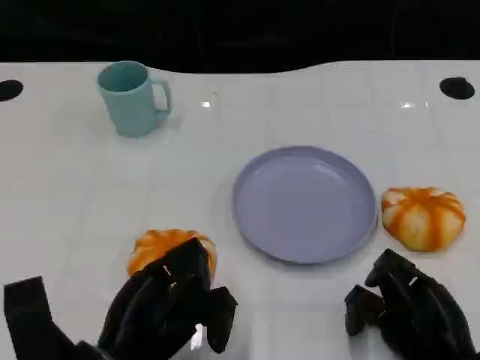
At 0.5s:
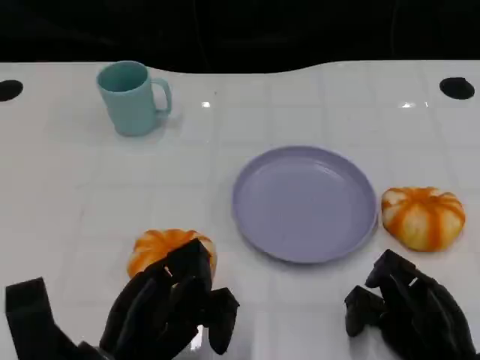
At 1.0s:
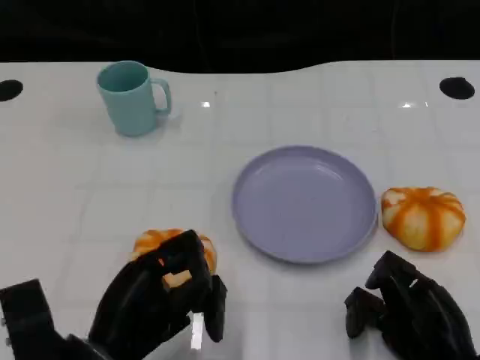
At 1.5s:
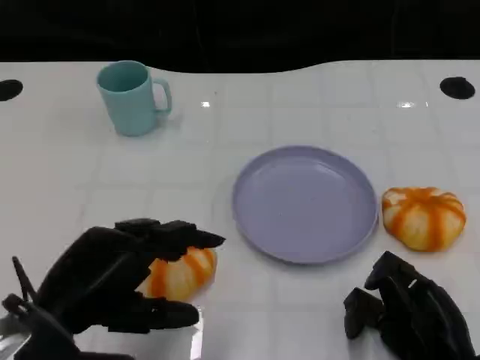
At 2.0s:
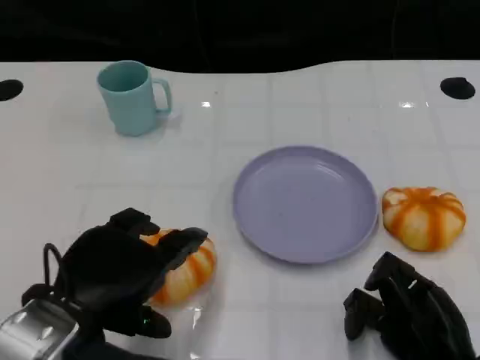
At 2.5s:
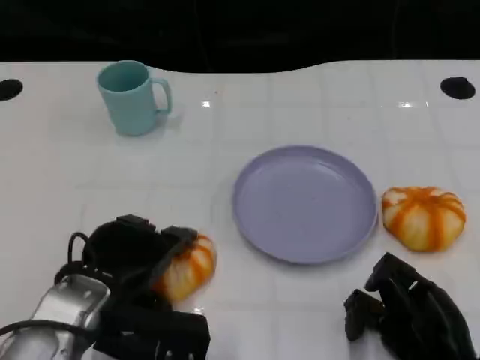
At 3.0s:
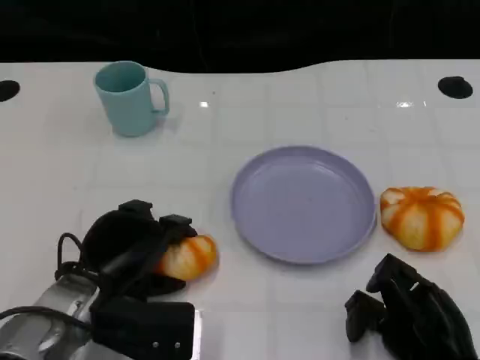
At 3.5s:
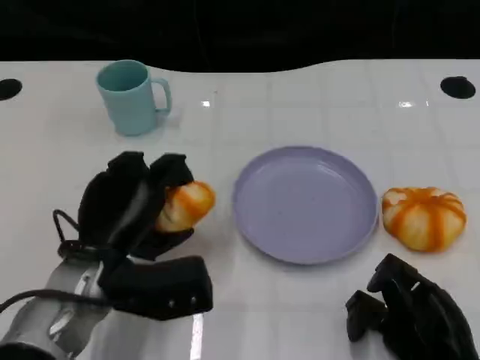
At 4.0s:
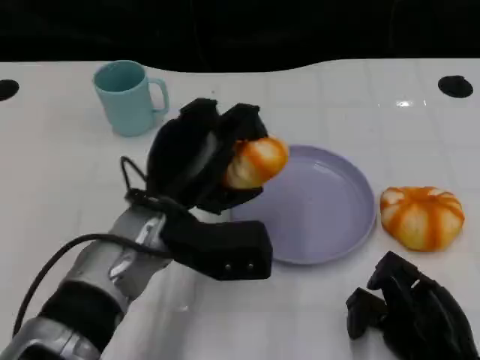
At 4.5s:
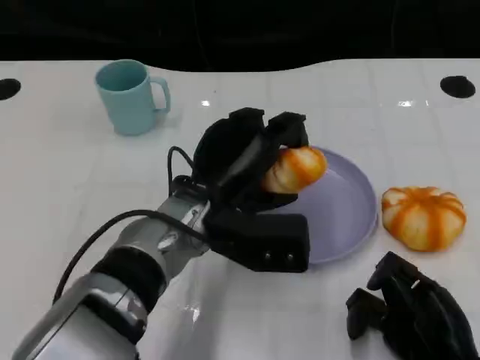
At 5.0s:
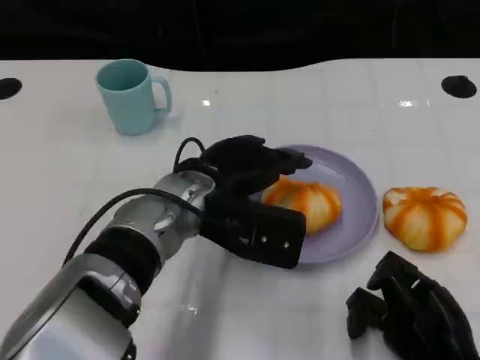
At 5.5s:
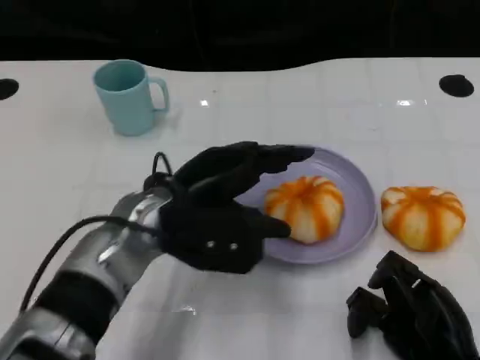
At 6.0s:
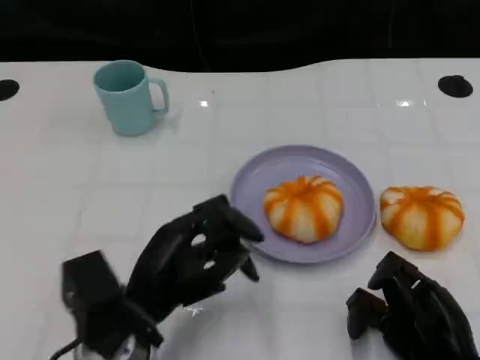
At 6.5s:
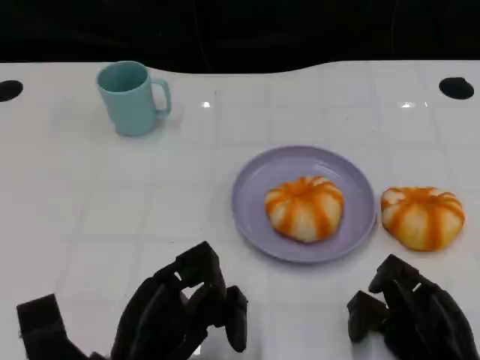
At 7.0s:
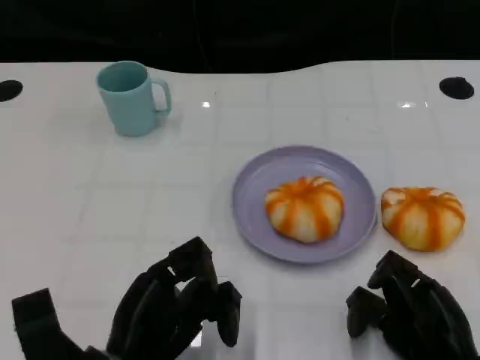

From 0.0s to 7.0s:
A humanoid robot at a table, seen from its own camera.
Task of the whole recording: Grasp the bread from the table and place it into the plate.
From 0.0s to 2.0s: The left hand shifts roughly 10 cm upward.
From 2.0s to 3.5s: The left hand goes roughly 5 cm forward.
From 3.5s to 5.0s: The left hand travels to the right and forward by roughly 10 cm.
From 5.0s to 7.0s: The left hand goes roughly 20 cm backward, to the left and downward.

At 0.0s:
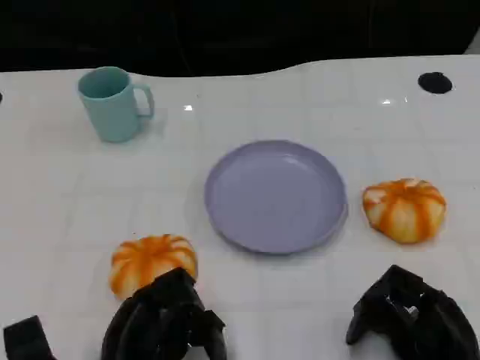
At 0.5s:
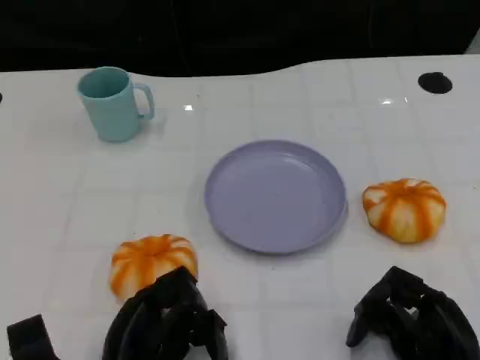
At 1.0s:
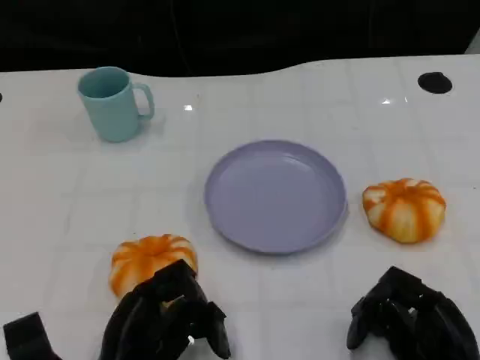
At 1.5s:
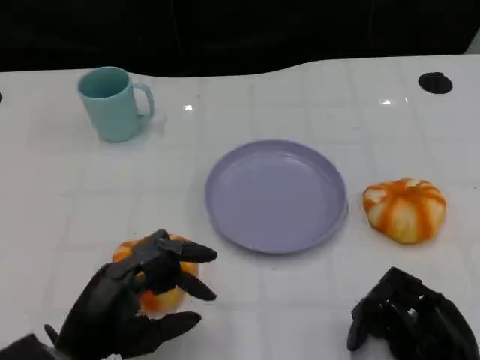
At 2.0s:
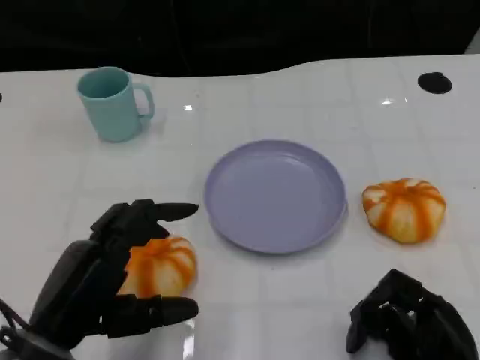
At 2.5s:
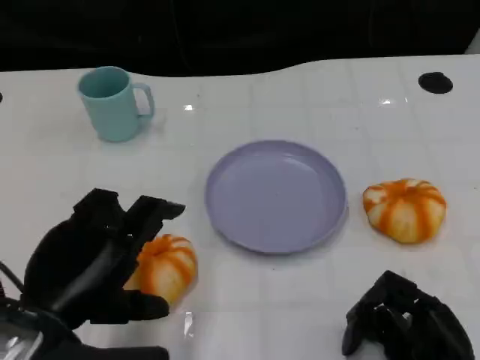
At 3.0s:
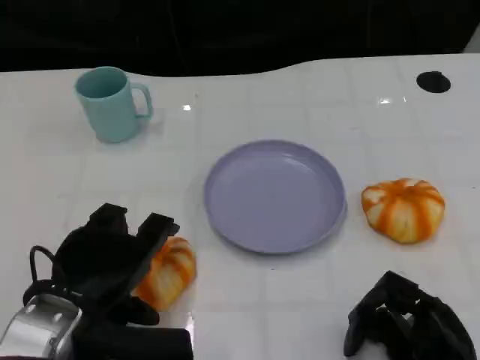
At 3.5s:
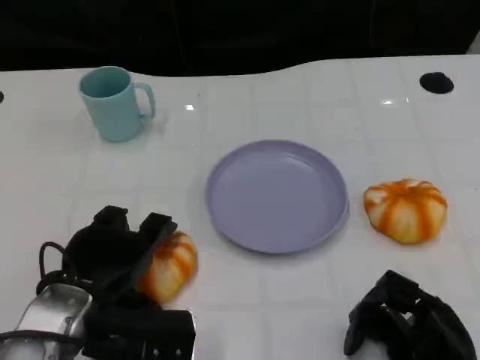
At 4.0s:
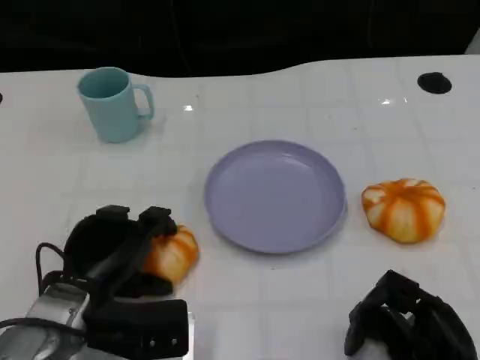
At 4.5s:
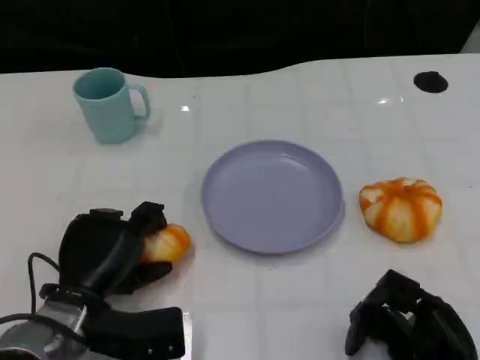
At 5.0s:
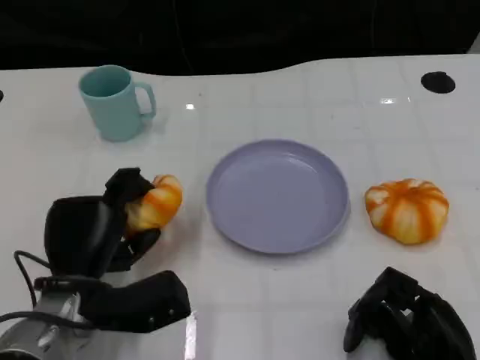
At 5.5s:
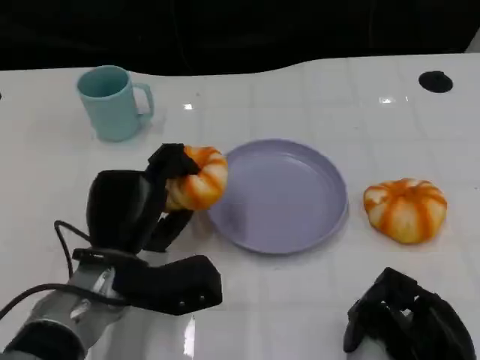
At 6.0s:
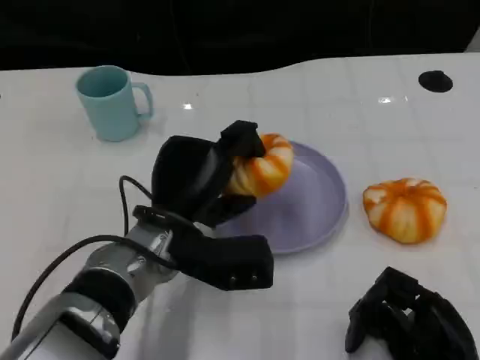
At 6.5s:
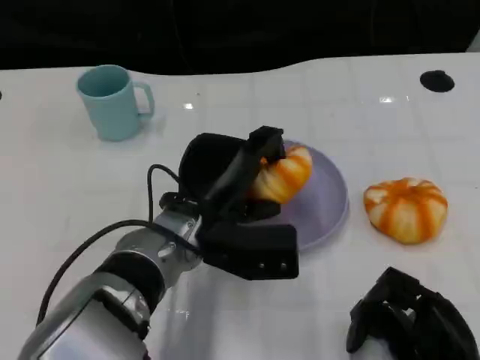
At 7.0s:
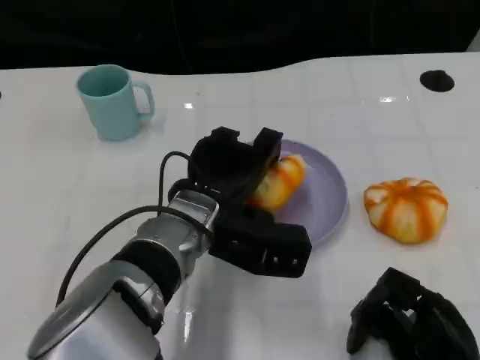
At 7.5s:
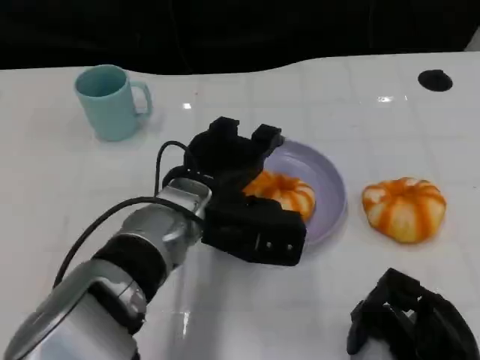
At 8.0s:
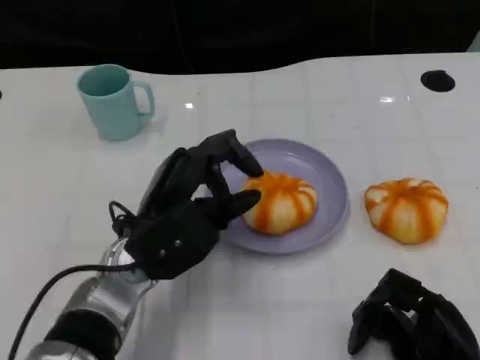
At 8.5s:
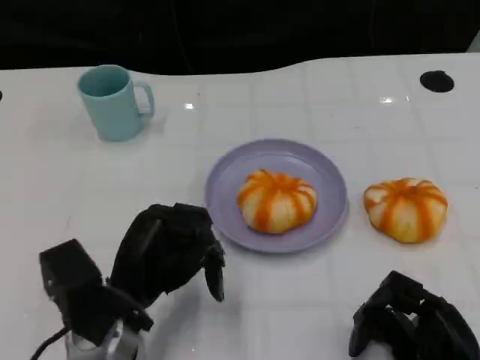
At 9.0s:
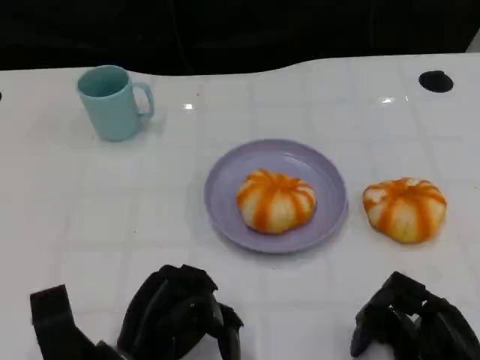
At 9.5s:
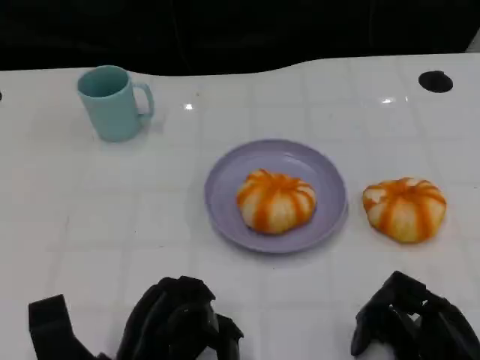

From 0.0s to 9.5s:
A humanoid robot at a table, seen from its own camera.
Task of the whole recording: Grasp the bread from the table and place it into the plate.
From 0.0s to 2.0s: The left hand is displaced upward by approximately 10 cm.
From 2.0s to 4.0s: The left hand moves forward and downward, roughly 10 cm.
From 4.0s to 5.5s: The left hand shifts by some 5 cm.
From 5.5s to 7.5s: The left hand heads to the right and upward, covering about 10 cm.
From 7.5s to 9.5s: The left hand shifts approximately 20 cm backward, downward and to the left.

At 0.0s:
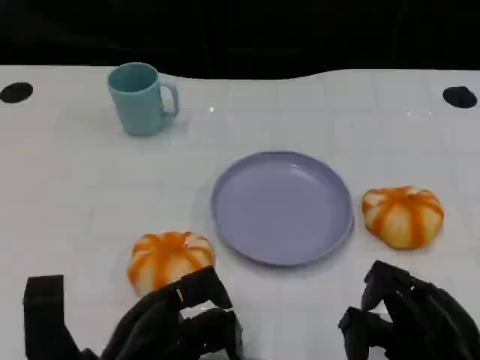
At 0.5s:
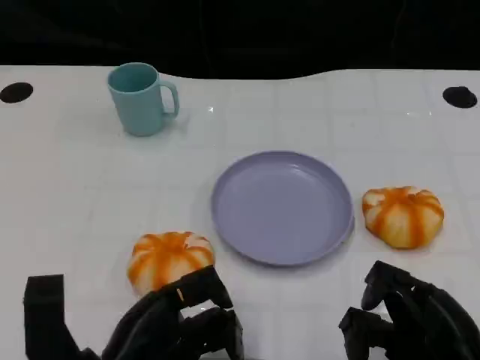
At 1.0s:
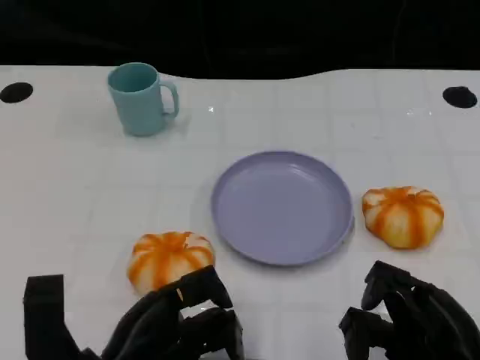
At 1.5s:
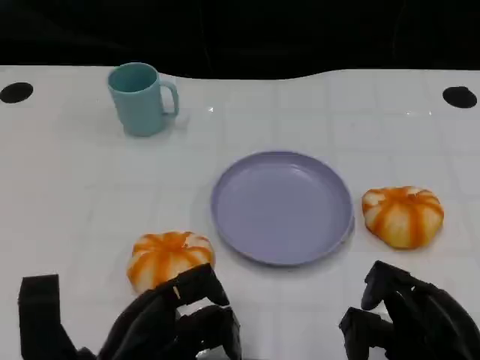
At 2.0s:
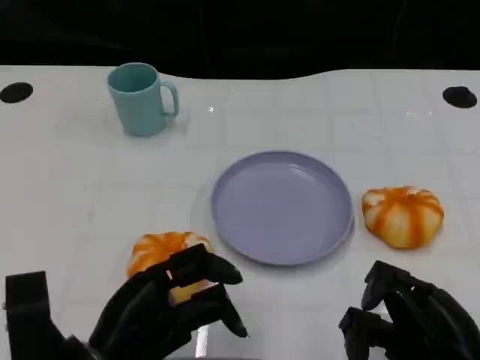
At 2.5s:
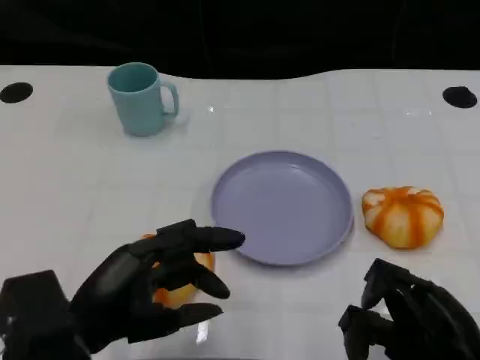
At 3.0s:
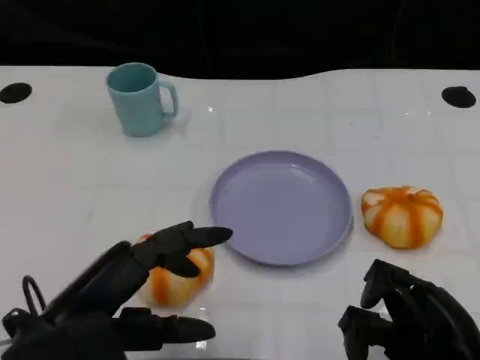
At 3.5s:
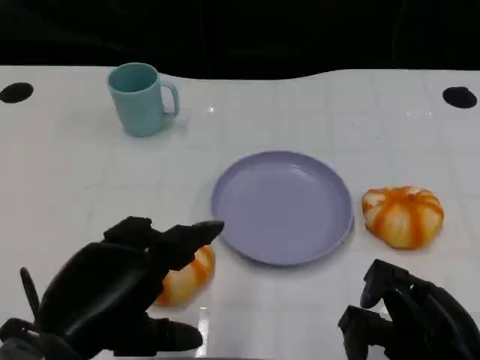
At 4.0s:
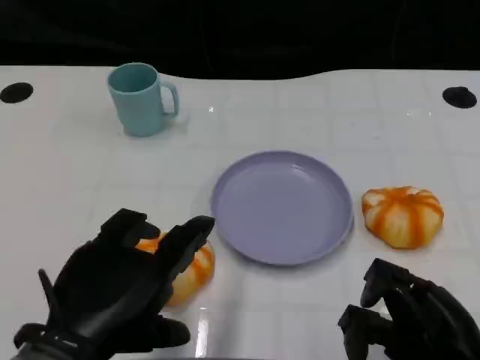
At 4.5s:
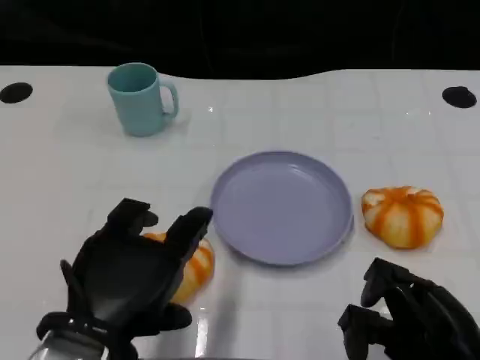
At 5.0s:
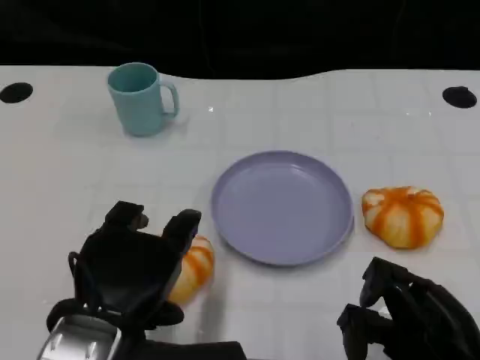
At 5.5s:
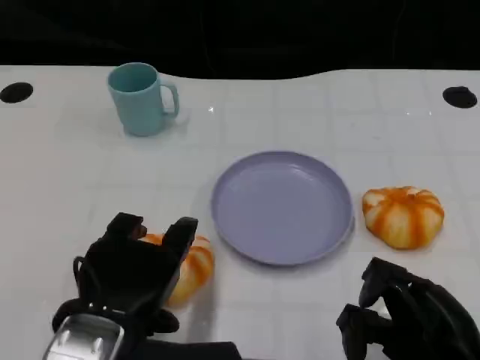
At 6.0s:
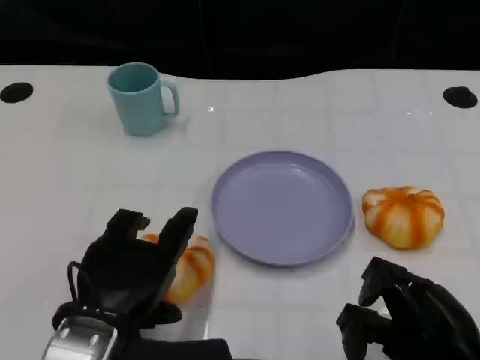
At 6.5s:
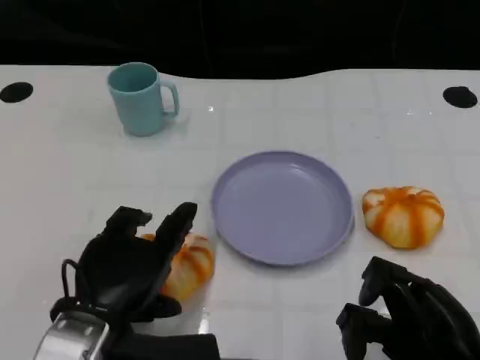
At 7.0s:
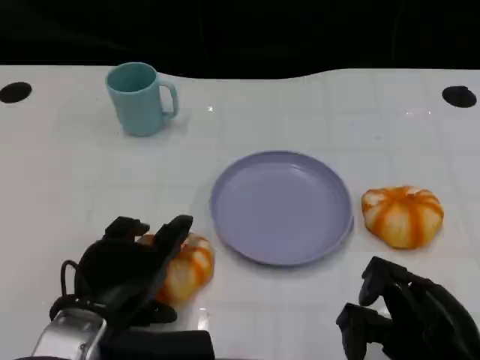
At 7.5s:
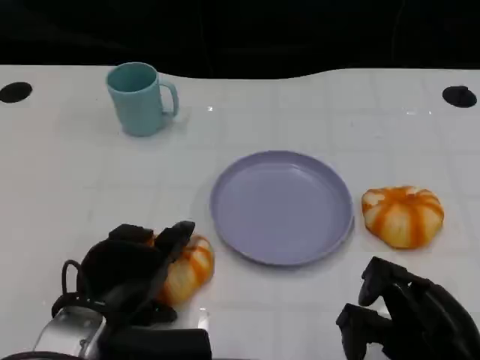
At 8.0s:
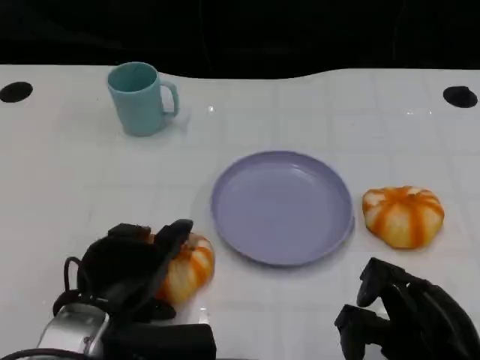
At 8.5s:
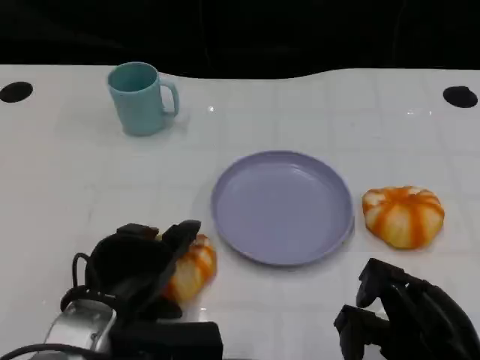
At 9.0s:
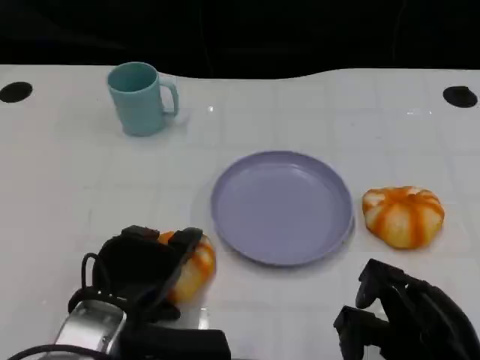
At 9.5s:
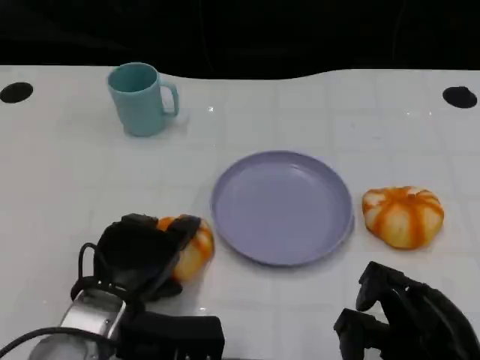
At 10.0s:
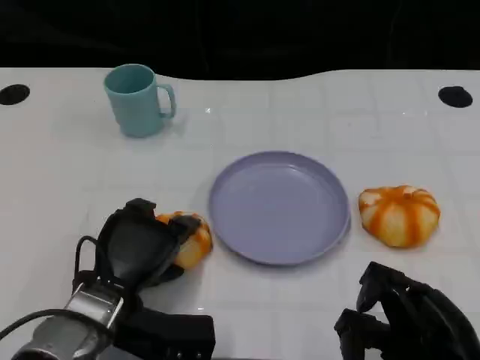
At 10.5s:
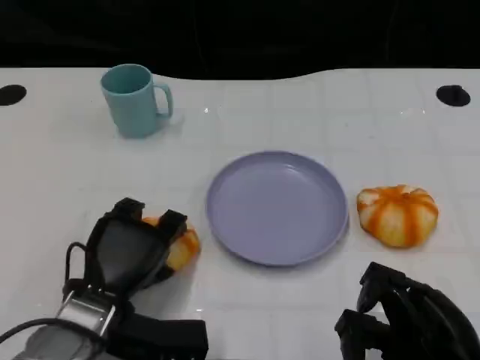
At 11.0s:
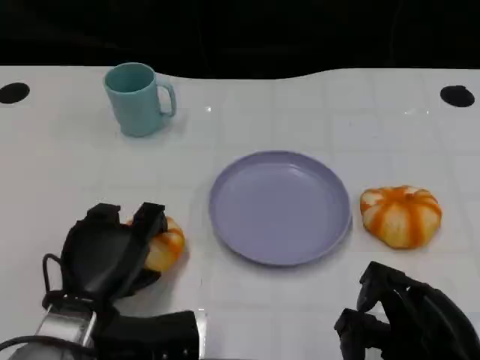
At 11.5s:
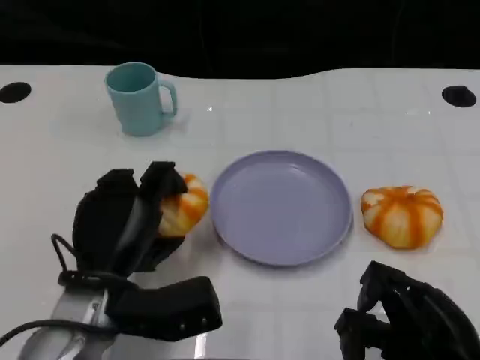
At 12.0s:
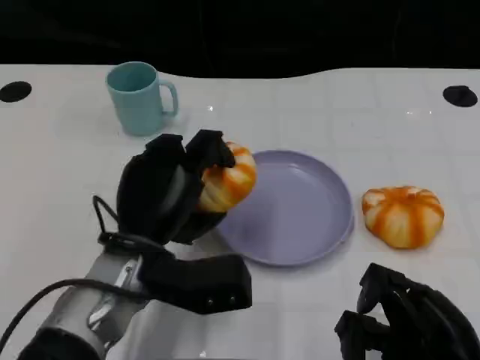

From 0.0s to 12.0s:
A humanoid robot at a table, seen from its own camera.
Task of the whole recording: Grasp the bread from the table and place it into the plate.
From 0.0s to 2.0s: There are only small adjustments of the hands.
From 2.0s to 4.0s: The left hand goes some 10 cm upward.
From 4.0s to 6.0s: The left hand travels downward by about 5 cm.
From 6.0s to 8.0s: The hands move only a little.
From 8.0s to 10.0s: The left hand changes place by some 5 cm.
From 10.0s to 12.0s: The left hand travels upward by about 5 cm.
